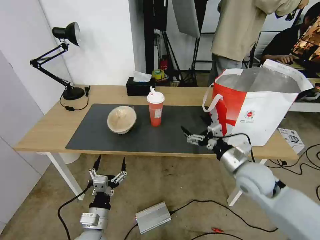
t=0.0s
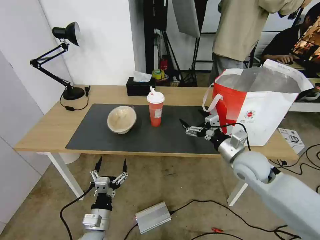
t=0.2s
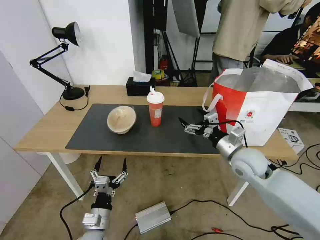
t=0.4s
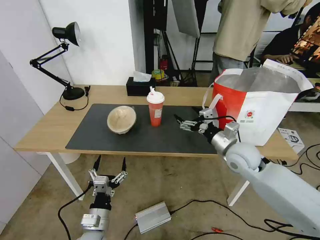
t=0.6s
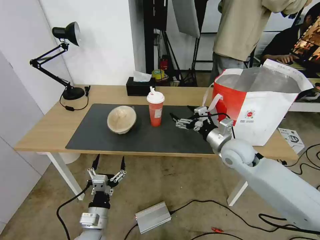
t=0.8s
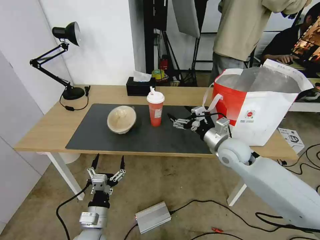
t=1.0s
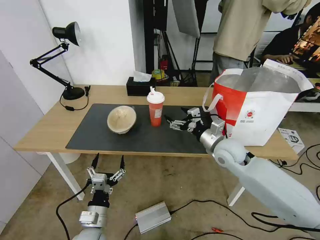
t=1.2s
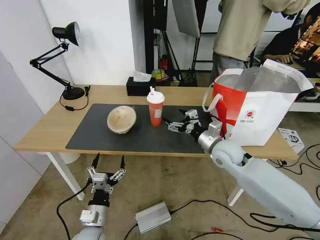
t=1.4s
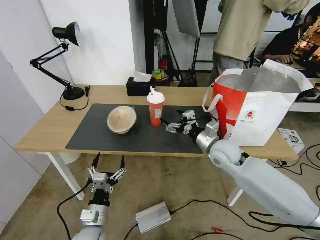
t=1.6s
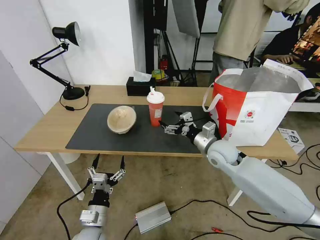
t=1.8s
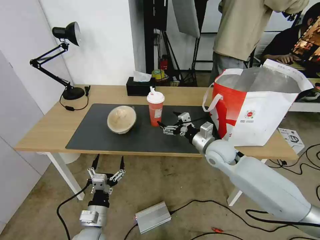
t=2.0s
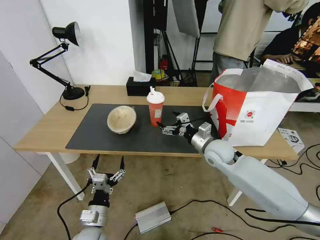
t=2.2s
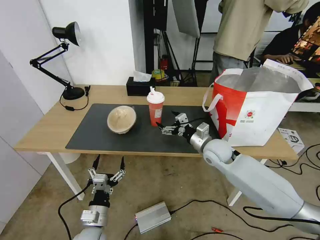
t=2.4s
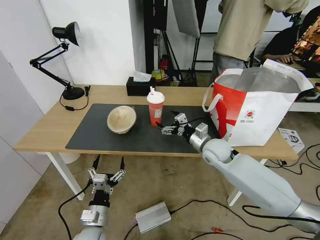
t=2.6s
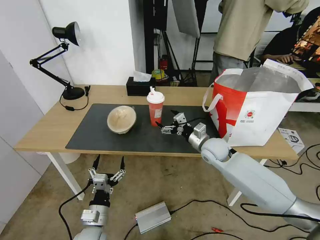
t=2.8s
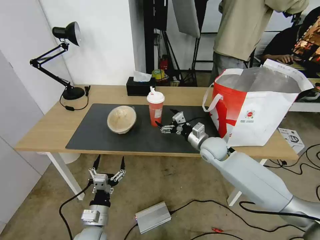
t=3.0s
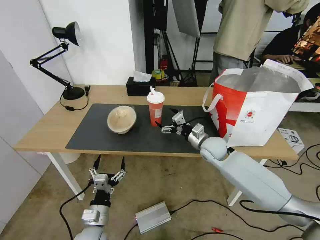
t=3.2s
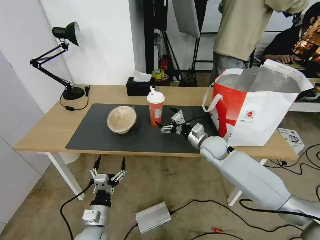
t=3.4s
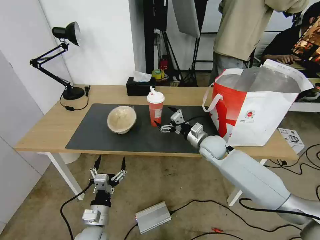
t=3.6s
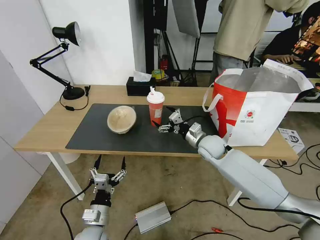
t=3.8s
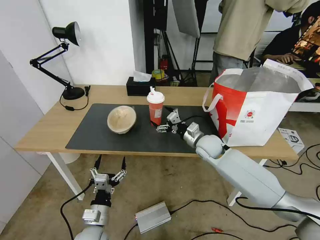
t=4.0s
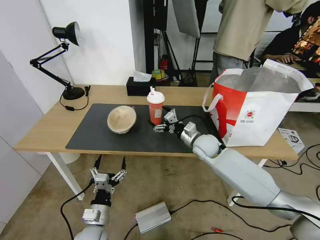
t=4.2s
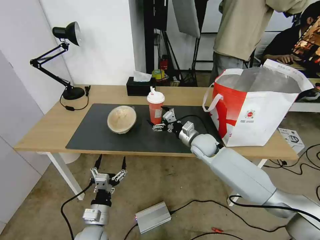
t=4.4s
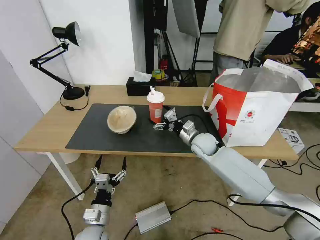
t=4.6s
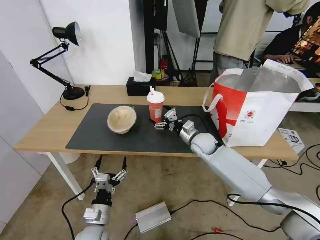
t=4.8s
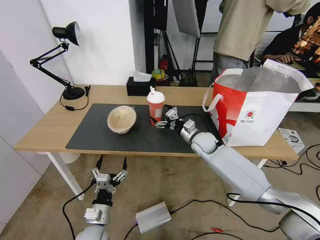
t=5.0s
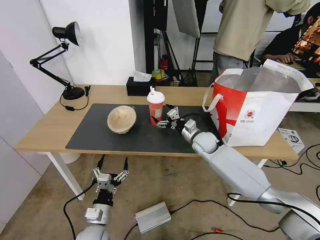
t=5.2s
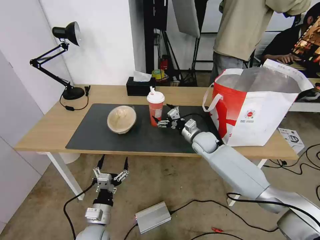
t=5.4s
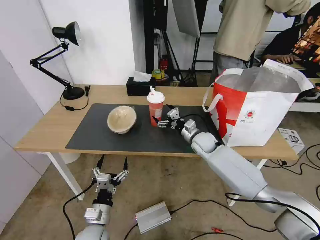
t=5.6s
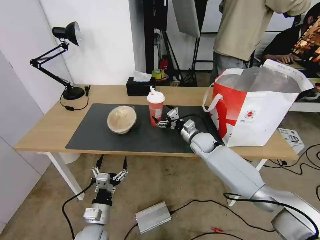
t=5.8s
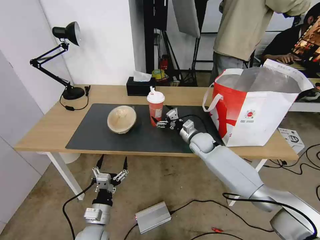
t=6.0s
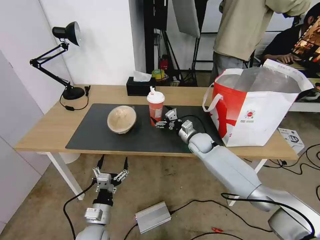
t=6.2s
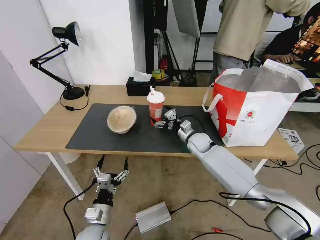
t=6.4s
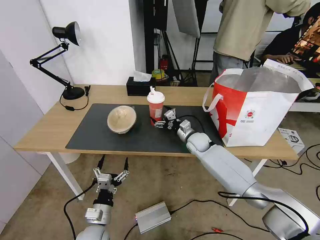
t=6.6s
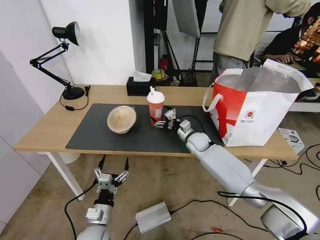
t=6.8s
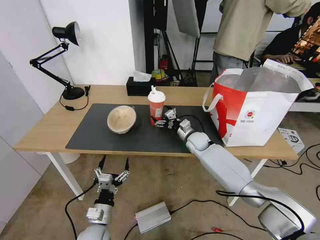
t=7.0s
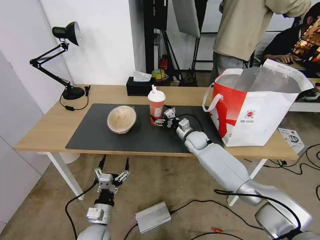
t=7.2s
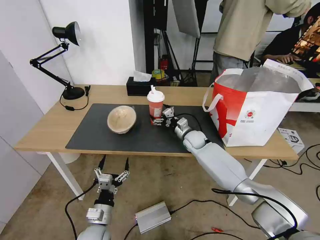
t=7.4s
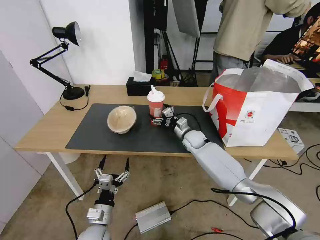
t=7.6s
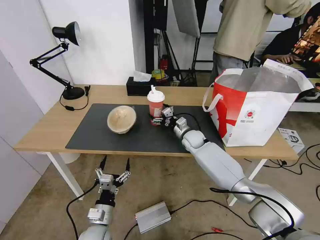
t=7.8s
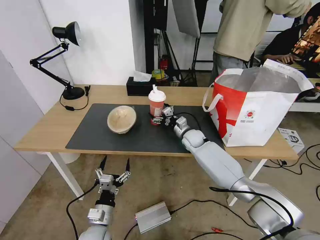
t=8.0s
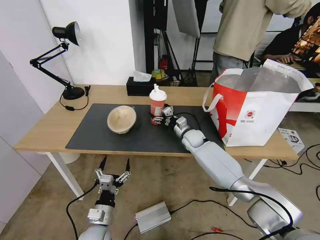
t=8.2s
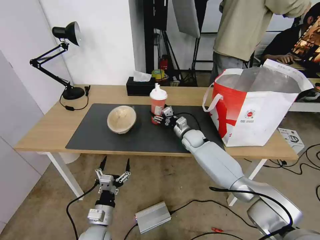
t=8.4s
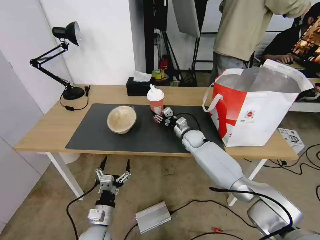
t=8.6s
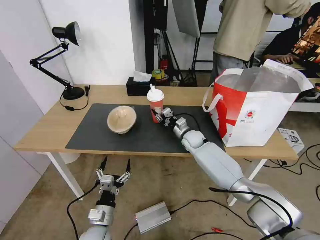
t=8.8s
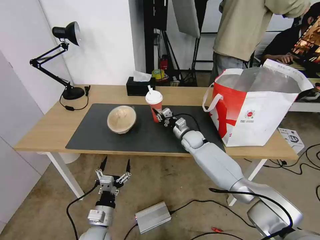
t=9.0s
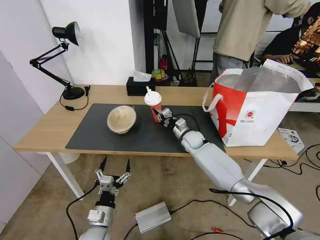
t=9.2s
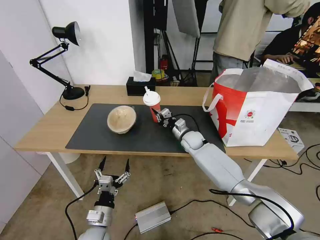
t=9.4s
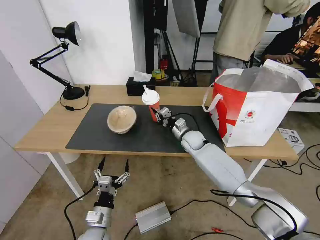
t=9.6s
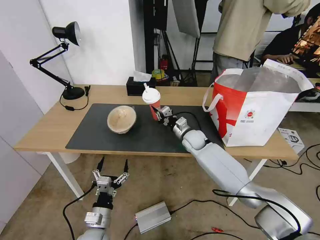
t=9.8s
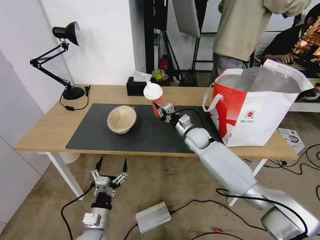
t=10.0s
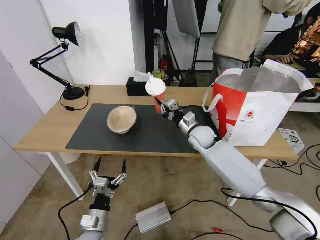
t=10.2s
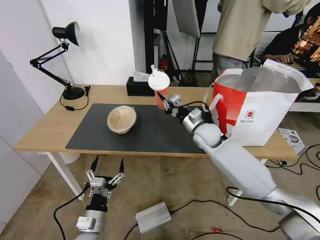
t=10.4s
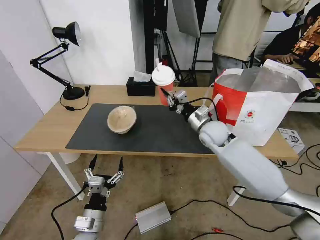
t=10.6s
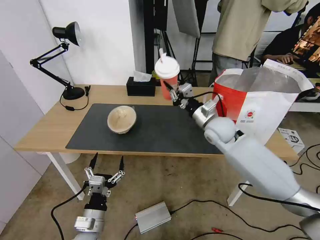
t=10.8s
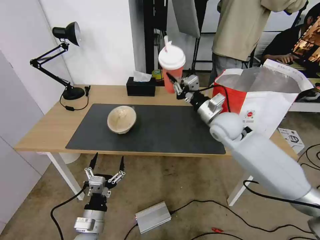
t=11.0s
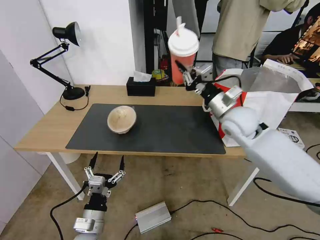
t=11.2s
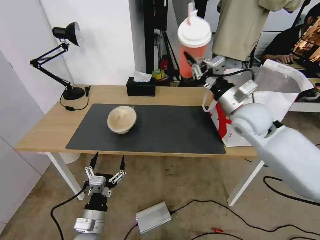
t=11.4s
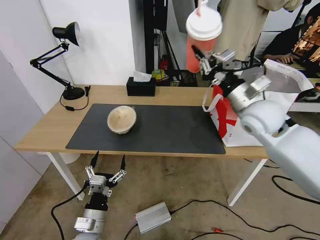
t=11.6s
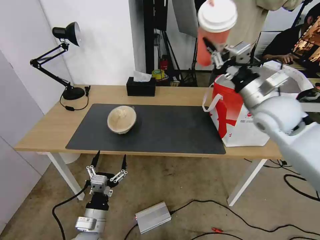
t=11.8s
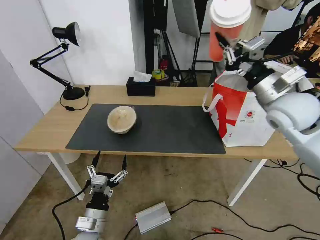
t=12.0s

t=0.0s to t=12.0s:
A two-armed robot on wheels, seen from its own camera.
Task of the whole recording: Pick up the trash from the table and place it into the takeout bag.
t=0.0s to t=1.6s: The right gripper is displaced forward and to the left by roughly 10 cm.
t=1.6s to t=3.0s: The right gripper shifts by approximately 5 cm.
t=3.0s to t=4.4s: The grippers stay close to where they were, moving slightly.
t=4.4s to t=6.0s: The grippers stay close to where they were, moving slightly.
t=6.0s to t=7.6s: There are only small adjustments of the grippers.
t=7.6s to t=9.0s: The right gripper closes up.
t=9.0s to t=10.4s: The right gripper travels upward and backward by about 10 cm.
t=10.4s to t=12.0s: The right gripper moves upward, to the right and backward, roughly 25 cm.

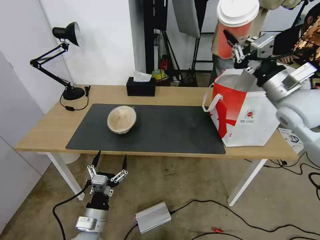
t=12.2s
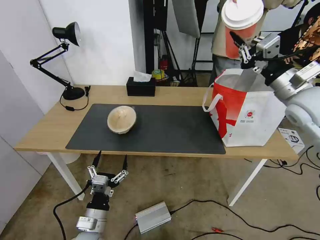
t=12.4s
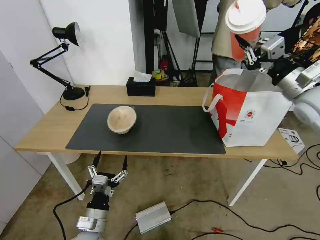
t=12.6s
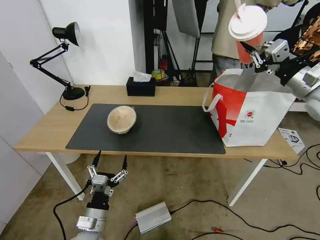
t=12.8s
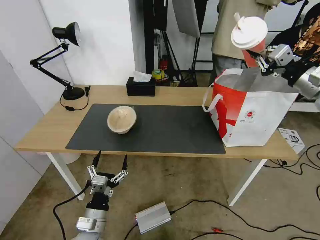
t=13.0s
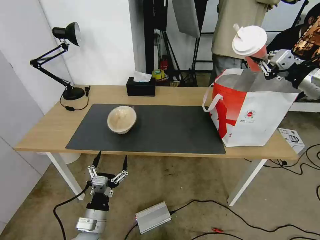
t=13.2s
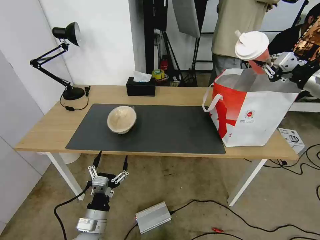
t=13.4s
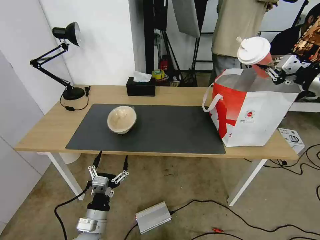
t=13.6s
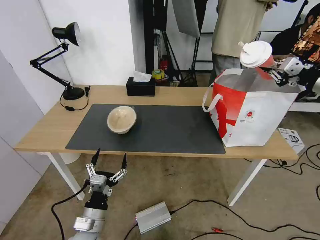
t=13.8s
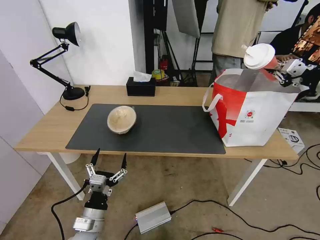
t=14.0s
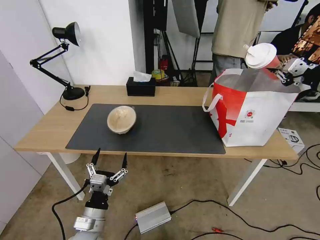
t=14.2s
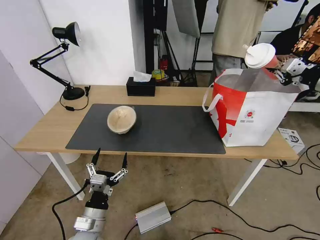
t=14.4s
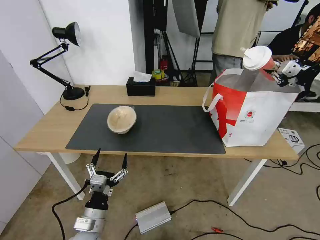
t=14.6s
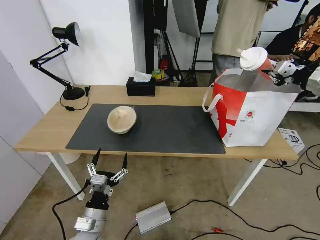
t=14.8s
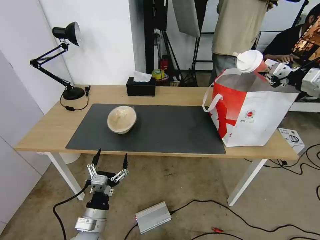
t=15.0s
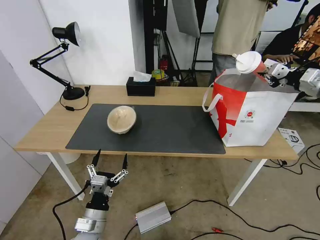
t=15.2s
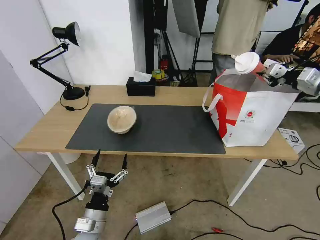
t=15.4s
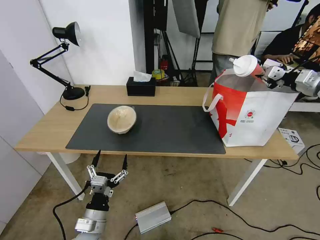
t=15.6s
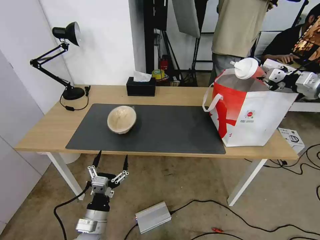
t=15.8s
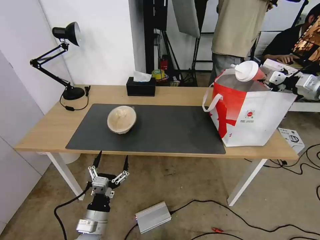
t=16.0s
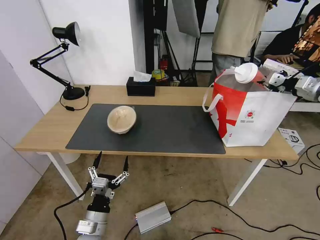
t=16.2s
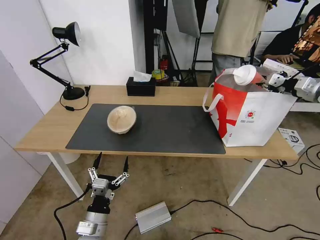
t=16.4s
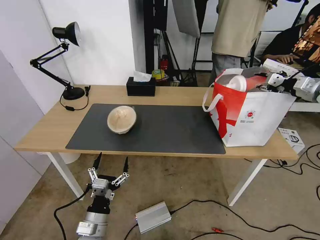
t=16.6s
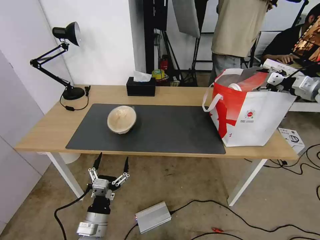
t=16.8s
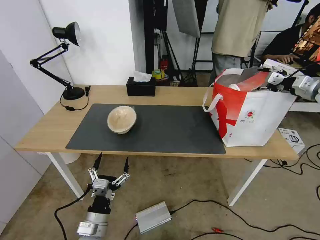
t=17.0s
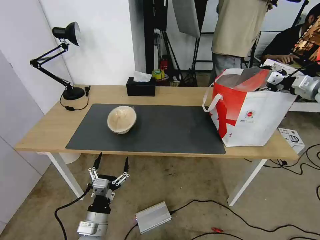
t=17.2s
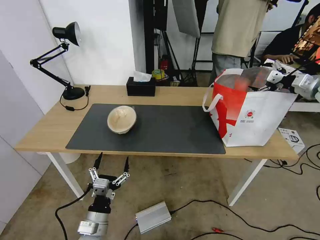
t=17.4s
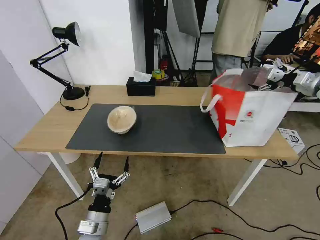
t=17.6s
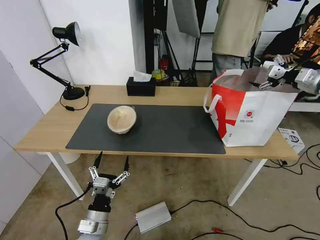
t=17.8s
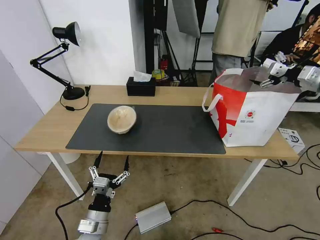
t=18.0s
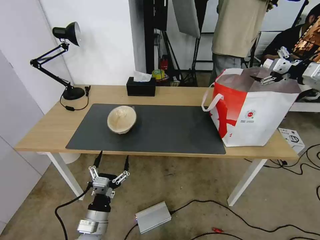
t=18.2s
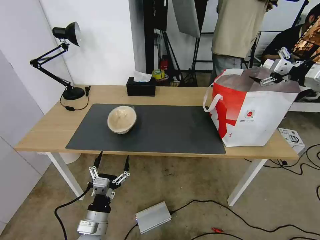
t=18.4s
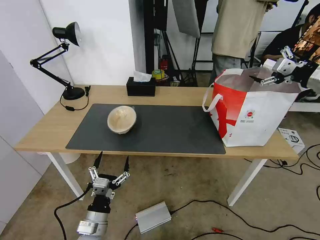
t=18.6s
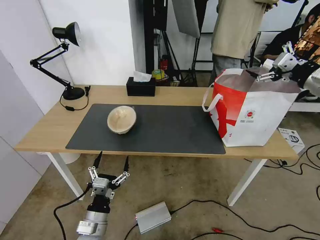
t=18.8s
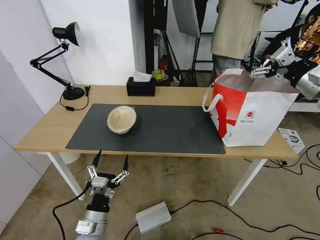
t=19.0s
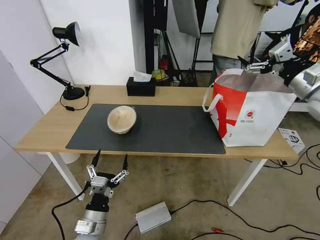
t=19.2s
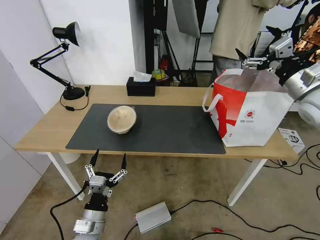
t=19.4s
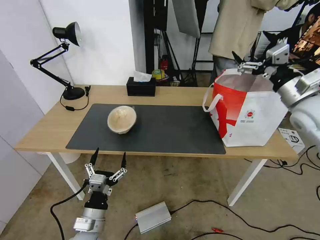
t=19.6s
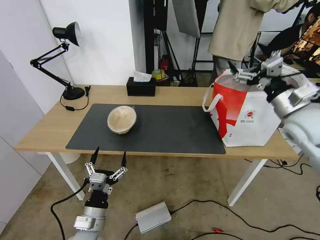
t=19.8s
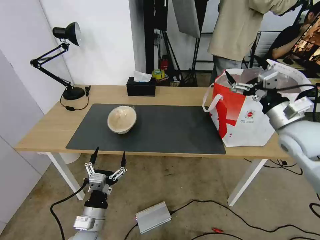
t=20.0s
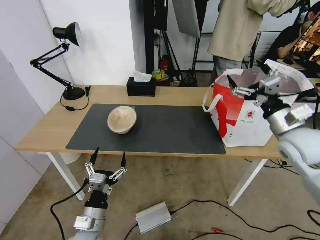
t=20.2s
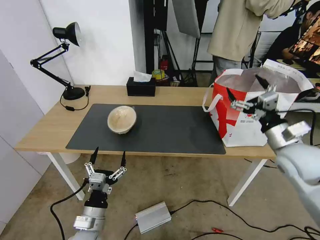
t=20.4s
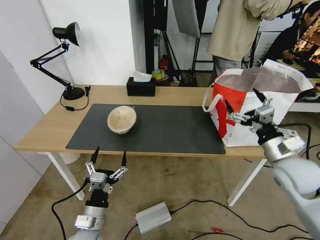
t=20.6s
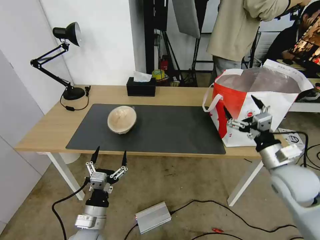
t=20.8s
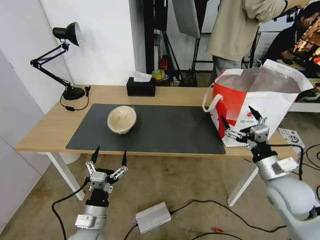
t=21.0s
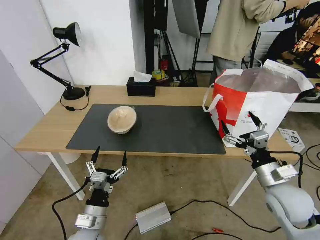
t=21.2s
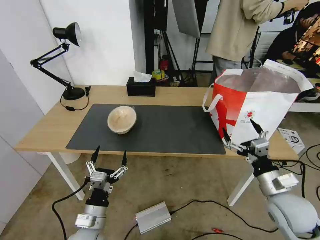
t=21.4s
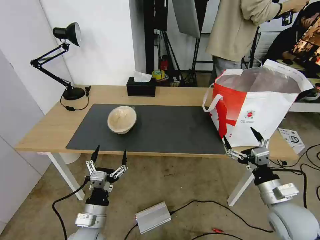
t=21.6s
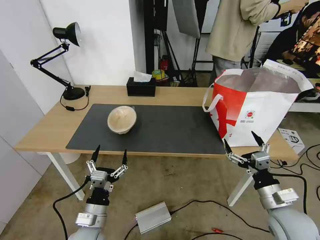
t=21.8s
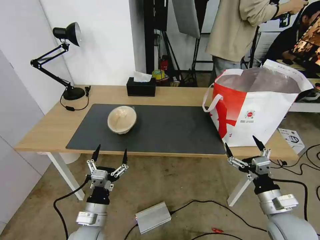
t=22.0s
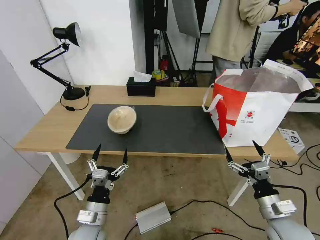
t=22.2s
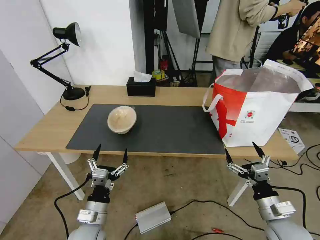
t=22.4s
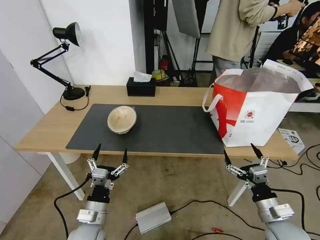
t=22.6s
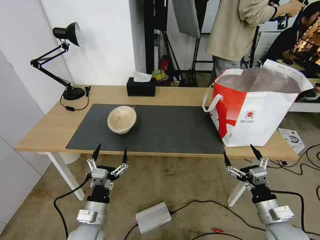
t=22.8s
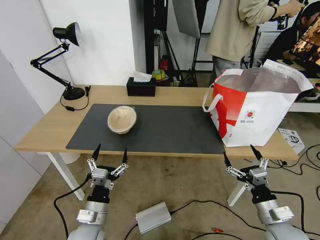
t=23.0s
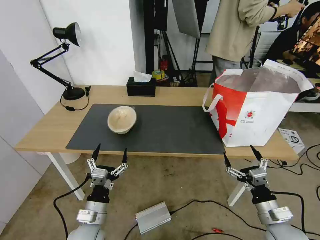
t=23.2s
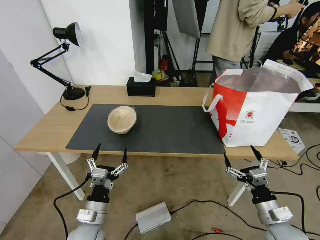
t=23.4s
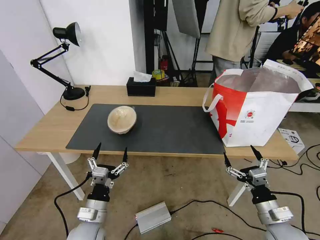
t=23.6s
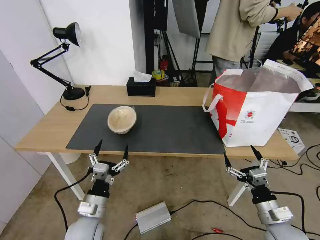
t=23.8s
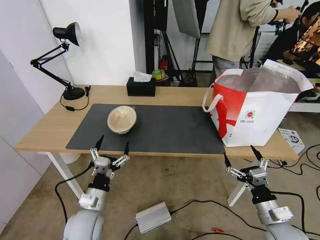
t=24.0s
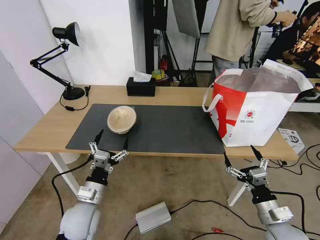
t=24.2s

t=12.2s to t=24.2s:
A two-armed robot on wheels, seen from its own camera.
Task of the whole recording: Pick up the trash from the table and place it into the takeout bag.
t=12.2s to t=13.8s: The right gripper goes approximately 15 cm to the right.
t=13.8s to t=15.2s: The right gripper goes about 5 cm forward.
t=15.2s to t=16.6s: The right gripper opens.
t=16.6s to t=18.2s: The right gripper opens up.
t=18.2s to t=19.8s: The right gripper moves to the left, backward and downward, approximately 20 cm.
t=19.8s to t=21.2s: The right gripper travels downward and backward by roughly 20 cm.
t=21.2s to t=22.6s: The right gripper is displaced downward and backward by some 10 cm.
t=22.6s to t=24.2s: The left gripper moves approximately 5 cm.
